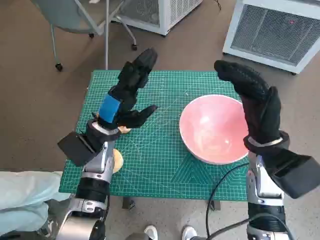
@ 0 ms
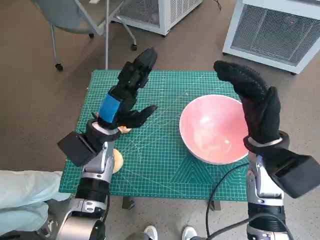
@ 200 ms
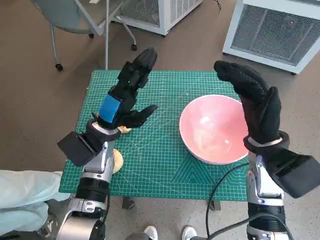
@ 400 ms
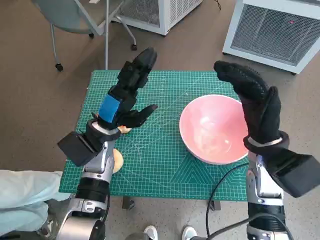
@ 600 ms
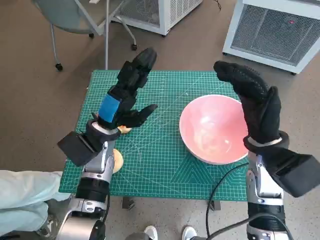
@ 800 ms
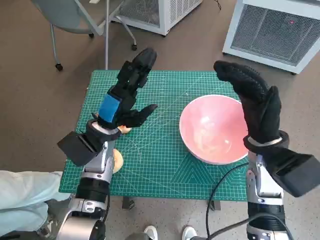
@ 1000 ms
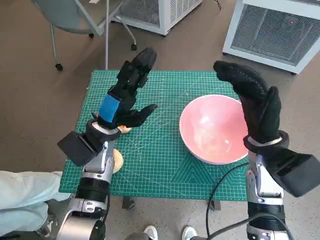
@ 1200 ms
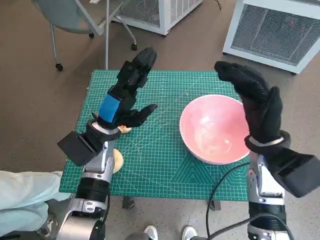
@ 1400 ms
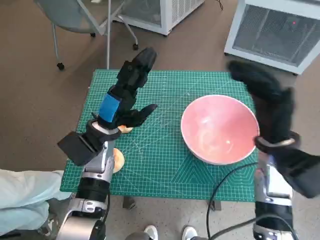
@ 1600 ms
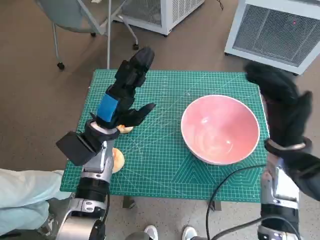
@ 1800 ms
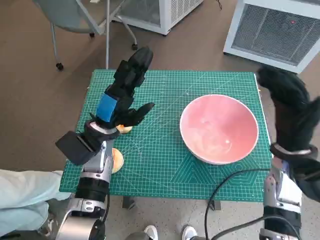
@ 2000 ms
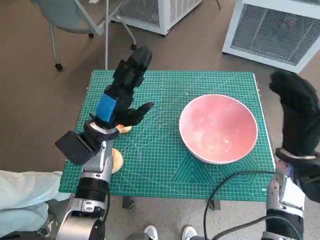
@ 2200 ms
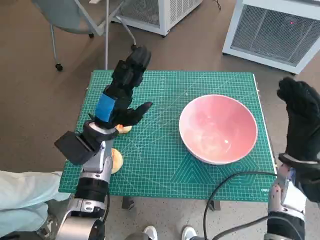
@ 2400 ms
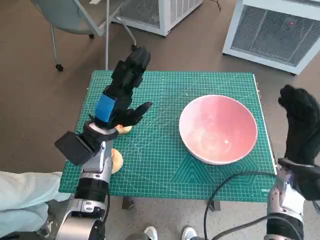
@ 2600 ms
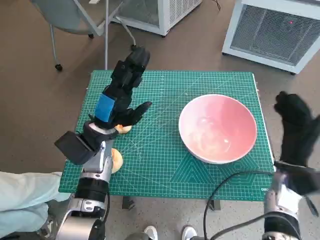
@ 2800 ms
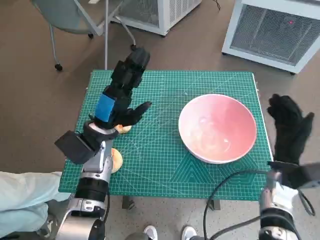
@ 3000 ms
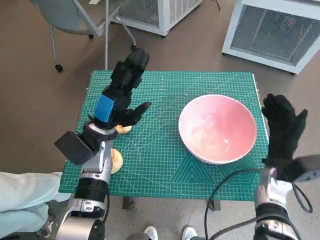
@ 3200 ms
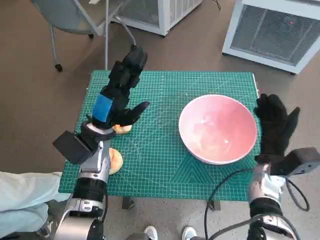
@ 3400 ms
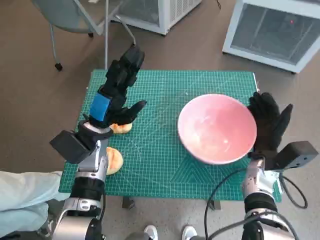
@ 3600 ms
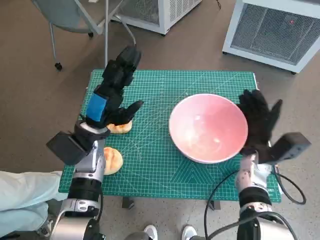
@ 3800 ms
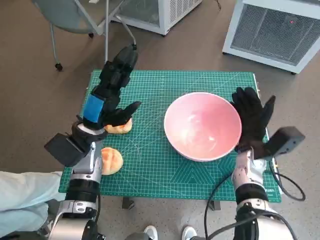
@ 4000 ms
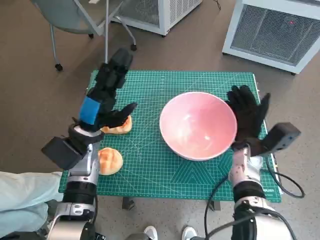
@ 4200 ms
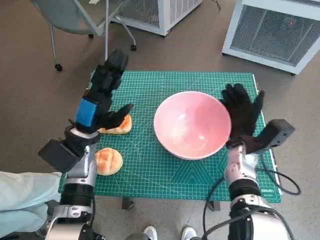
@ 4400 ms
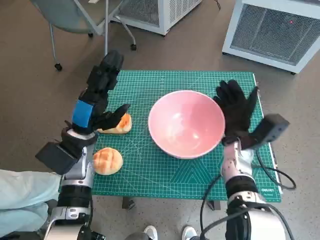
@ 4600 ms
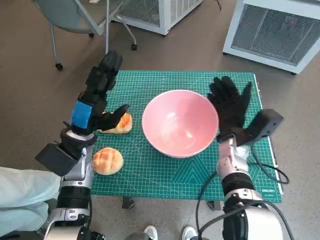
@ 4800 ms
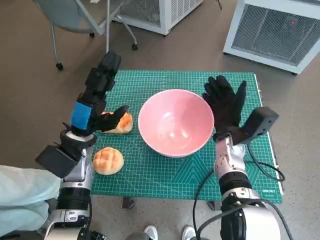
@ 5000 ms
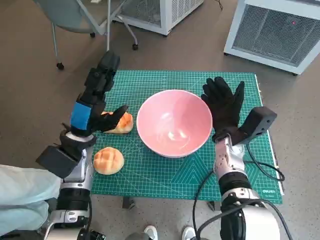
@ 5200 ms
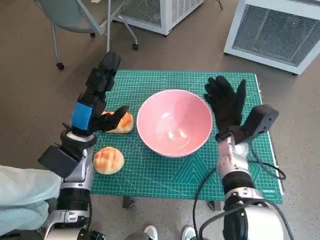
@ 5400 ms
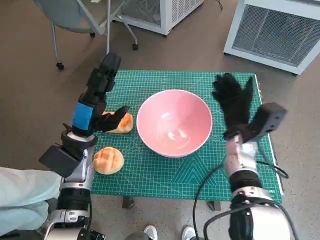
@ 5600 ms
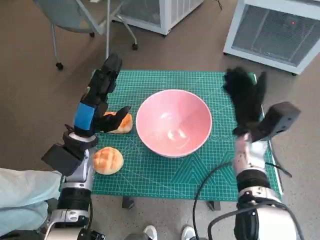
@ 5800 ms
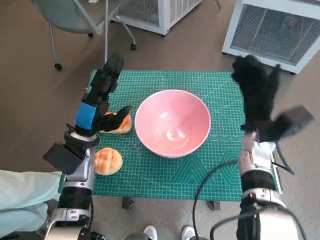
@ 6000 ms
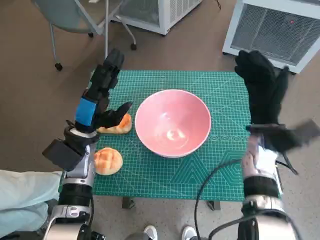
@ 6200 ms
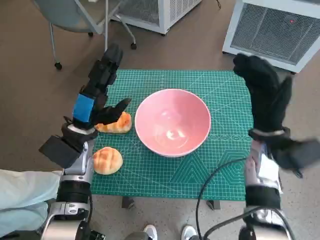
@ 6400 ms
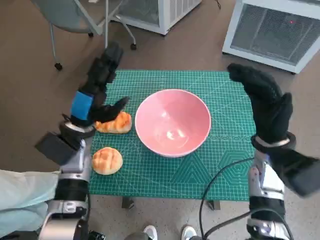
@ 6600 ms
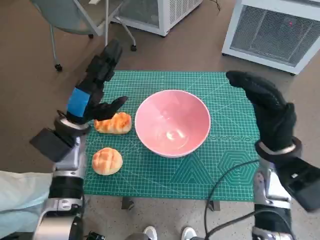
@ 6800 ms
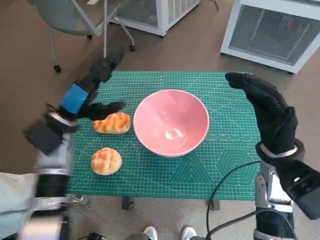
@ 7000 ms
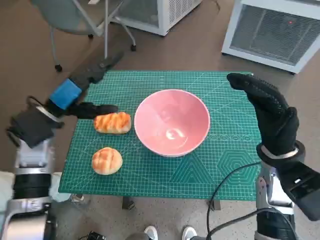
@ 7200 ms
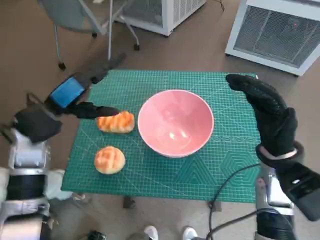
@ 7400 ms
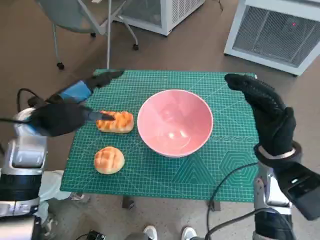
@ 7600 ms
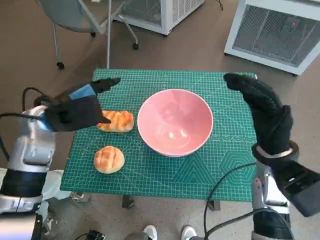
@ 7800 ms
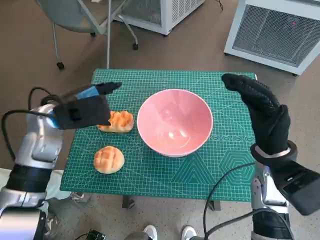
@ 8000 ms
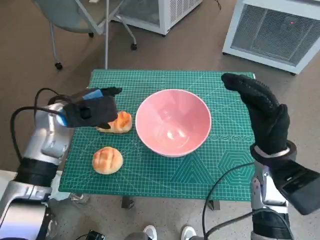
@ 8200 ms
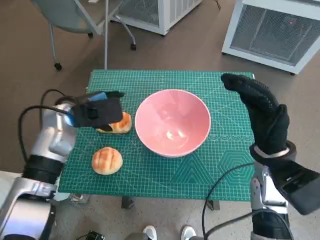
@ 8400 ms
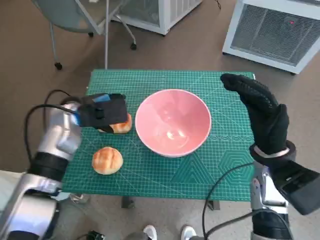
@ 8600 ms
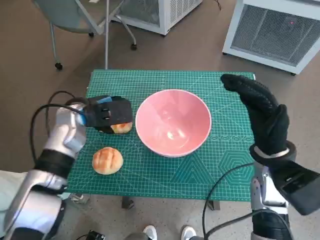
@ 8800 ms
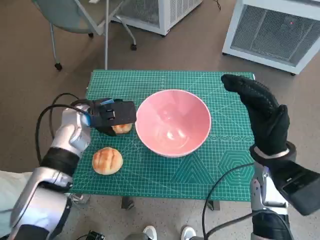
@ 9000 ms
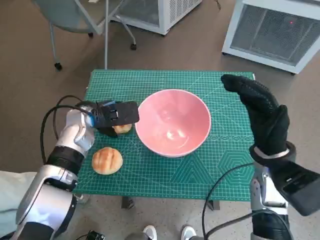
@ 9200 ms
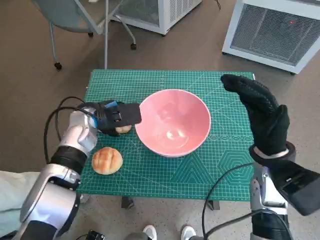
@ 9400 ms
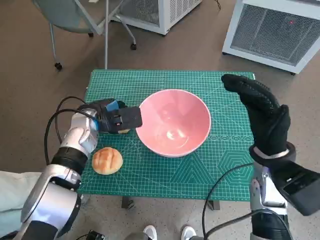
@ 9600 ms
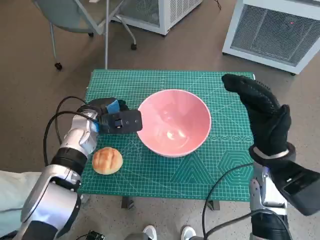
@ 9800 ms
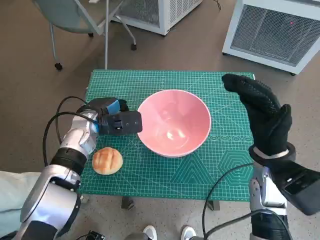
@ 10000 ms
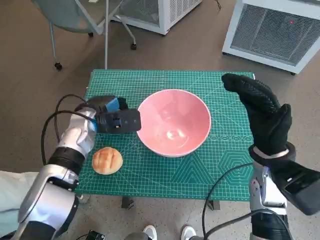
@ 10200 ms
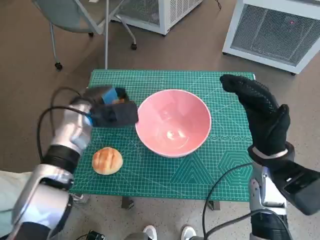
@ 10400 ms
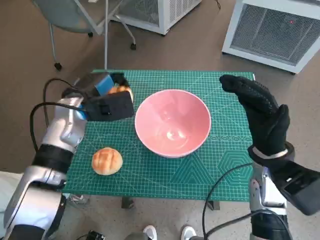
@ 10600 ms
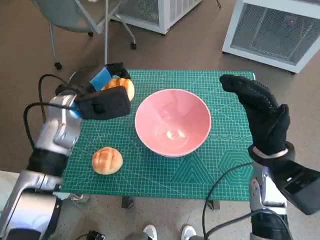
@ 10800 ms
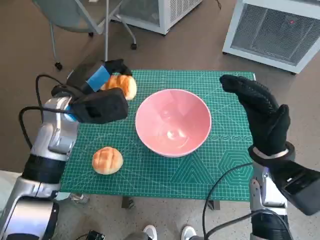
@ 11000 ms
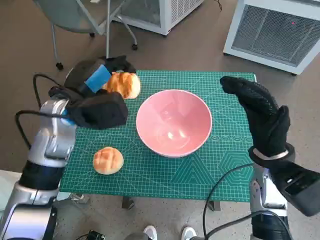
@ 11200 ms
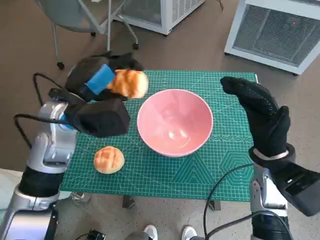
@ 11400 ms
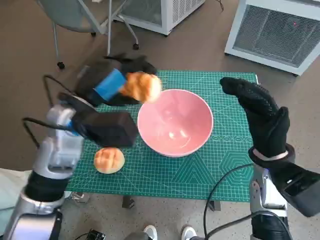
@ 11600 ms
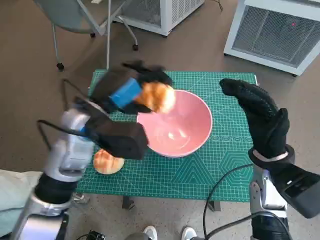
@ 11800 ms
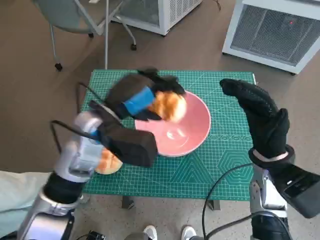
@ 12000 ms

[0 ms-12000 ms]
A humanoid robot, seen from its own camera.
Task of the whole recording: Push the bowl into the center of the table and put the bread into the bowl.
Step, 0 ms to 5400 ms: Move the pink bowl to the center of table with right hand.
Step, 5600 ms to 9800 ms: Grasp the long bread with left hand.
1600 ms to 3000 ms: The right hand shifts approximately 10 cm downward and to the right.
3000 ms to 4400 ms: The right hand is displaced to the left and forward by approximately 10 cm.
4400 ms to 6000 ms: The right hand changes place by roughly 5 cm.
6000 ms to 7600 ms: The left hand moves upward, some 10 cm; the right hand heads backward, covering about 5 cm.
7600 ms to 9000 ms: The left hand travels downward by roughly 5 cm.
9000 ms to 10400 ms: The hands move only a little.
10400 ms to 12000 ms: The left hand goes about 10 cm to the right, upward and backward.

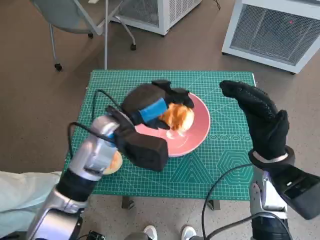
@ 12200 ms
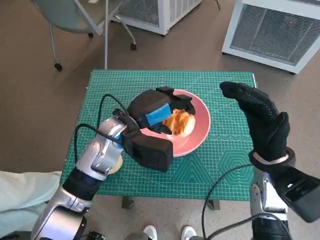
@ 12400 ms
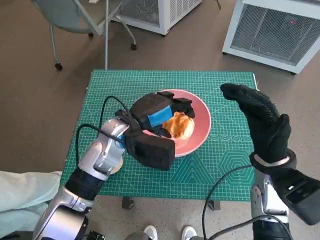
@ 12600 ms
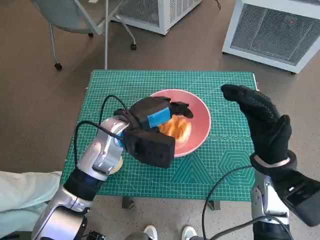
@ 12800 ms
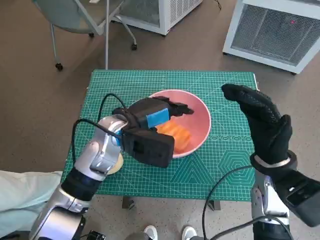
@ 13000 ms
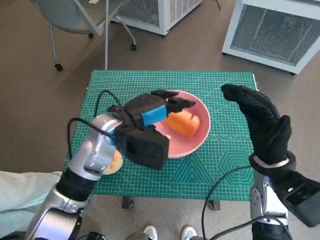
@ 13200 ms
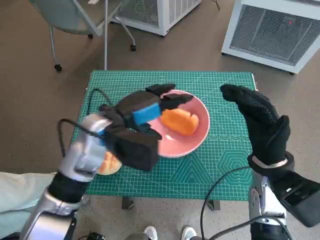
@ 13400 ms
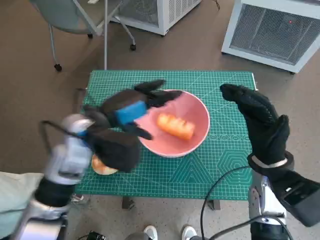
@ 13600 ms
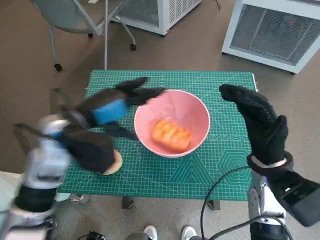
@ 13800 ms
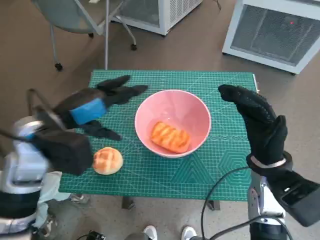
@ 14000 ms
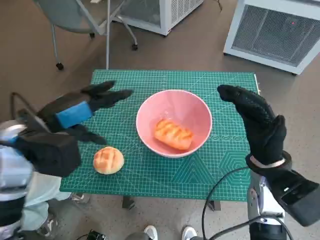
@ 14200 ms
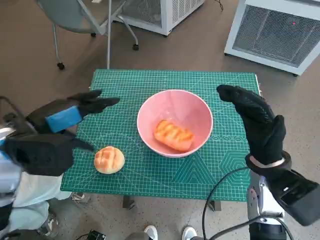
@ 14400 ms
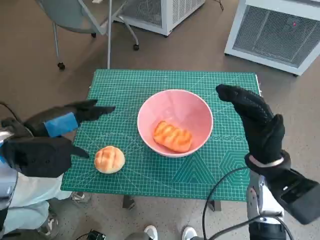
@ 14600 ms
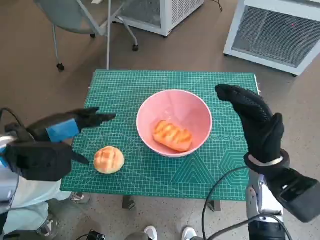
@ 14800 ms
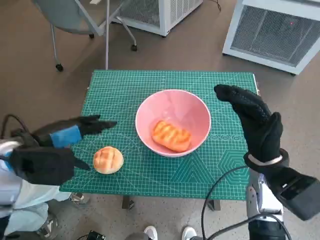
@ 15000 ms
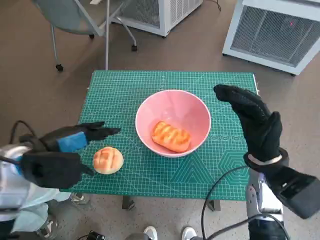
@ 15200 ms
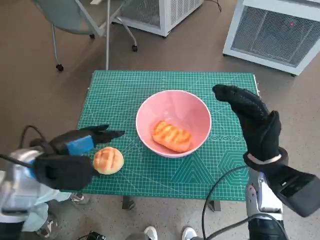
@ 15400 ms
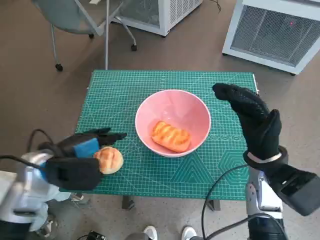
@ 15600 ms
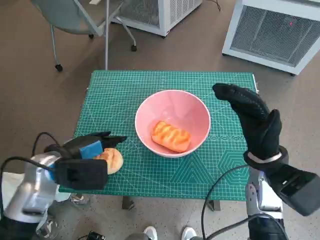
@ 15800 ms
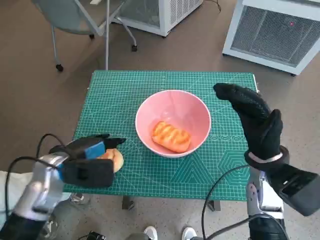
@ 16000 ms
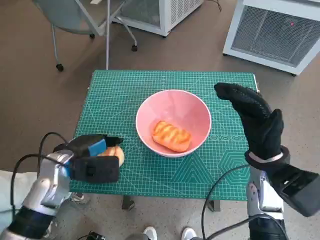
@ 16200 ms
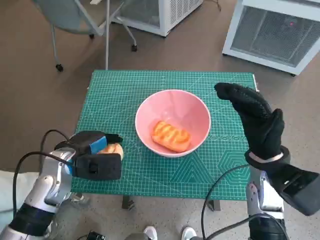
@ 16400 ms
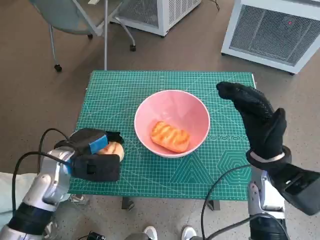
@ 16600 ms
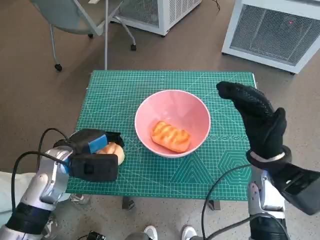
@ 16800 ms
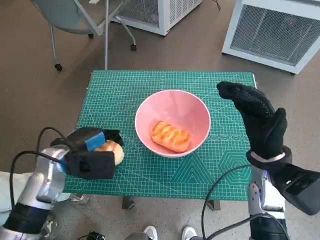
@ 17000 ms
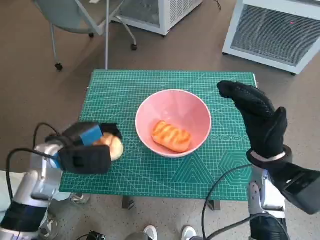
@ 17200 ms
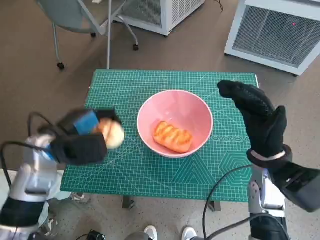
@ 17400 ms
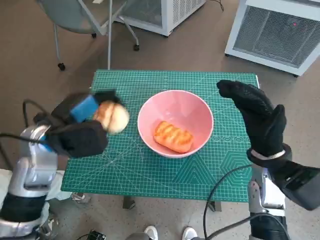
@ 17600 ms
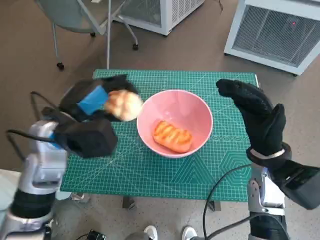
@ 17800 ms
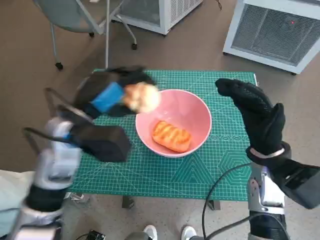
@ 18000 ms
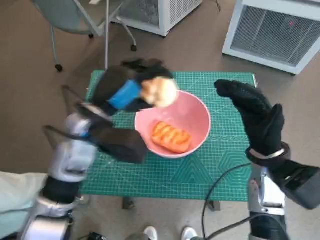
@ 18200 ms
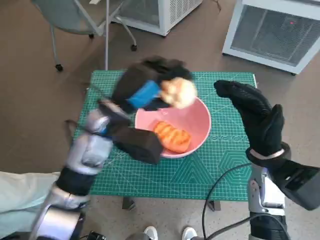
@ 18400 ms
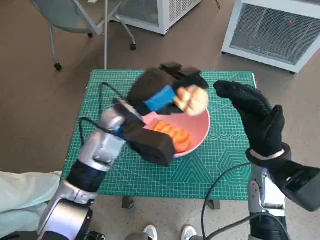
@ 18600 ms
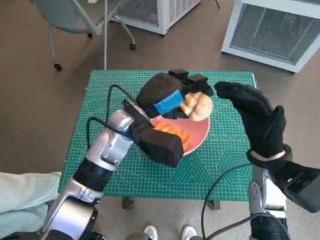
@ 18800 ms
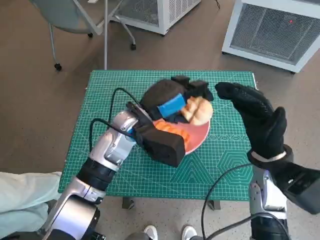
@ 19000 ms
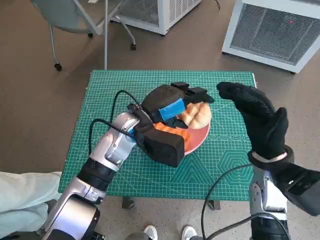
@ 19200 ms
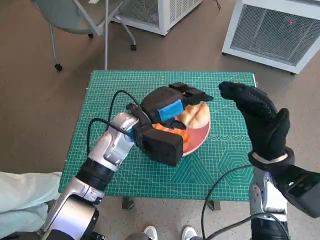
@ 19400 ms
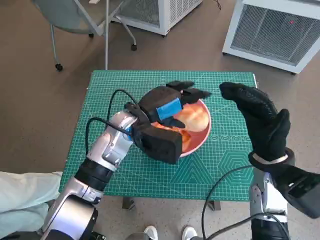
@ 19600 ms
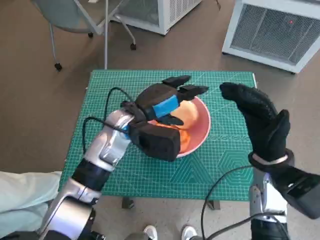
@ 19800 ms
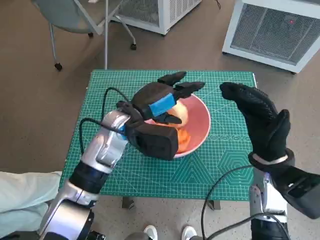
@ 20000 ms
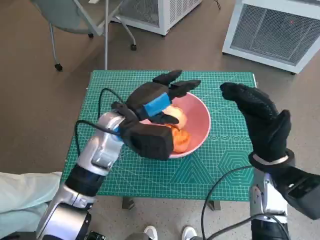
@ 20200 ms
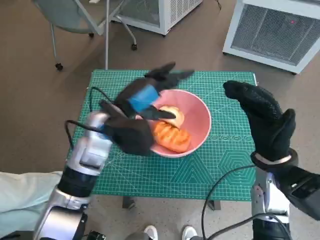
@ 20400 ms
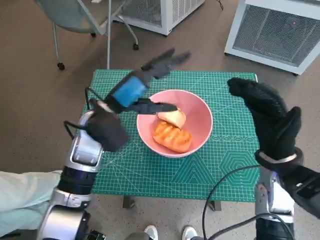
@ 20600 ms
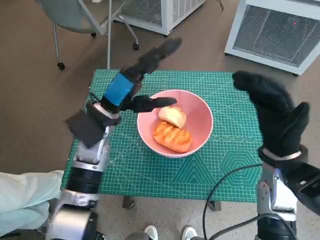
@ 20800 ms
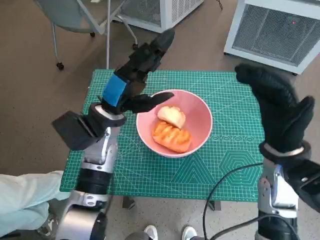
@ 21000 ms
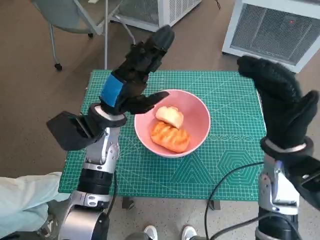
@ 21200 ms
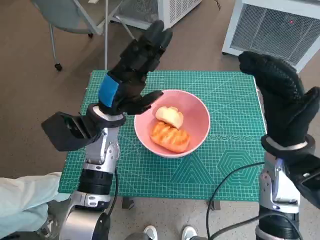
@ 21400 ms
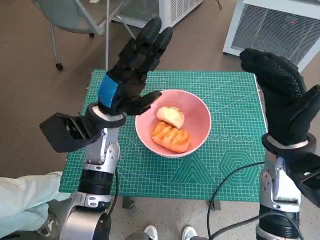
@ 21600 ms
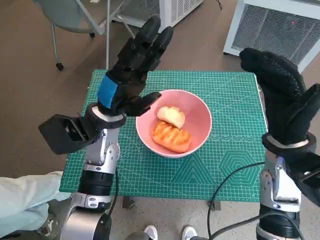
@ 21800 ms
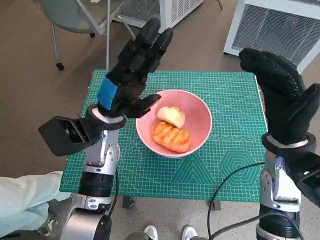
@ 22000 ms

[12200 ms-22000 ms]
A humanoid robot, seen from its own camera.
Task of the whole recording: Push the bowl into the center of the table and put the bread into the bowl.
Step, 13000 ms to 16400 ms: Grasp the round bread with left hand.
Step, 16600 ms to 19600 ms: Place the round bread in pink bowl with left hand.
13600 ms to 15000 ms: The left hand moves to the left and backward, about 10 cm.
15000 ms to 16400 ms: The left hand is displaced downward by some 10 cm.
16400 ms to 17800 ms: The left hand goes some 10 cm upward.
17800 ms to 19200 ms: The left hand is displaced to the right by roughly 10 cm.
19200 ms to 20600 ms: The left hand is displaced to the left by some 5 cm.
